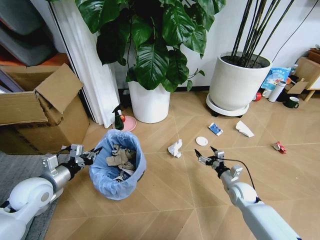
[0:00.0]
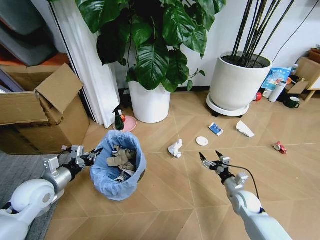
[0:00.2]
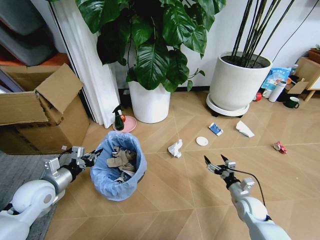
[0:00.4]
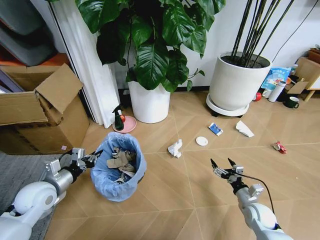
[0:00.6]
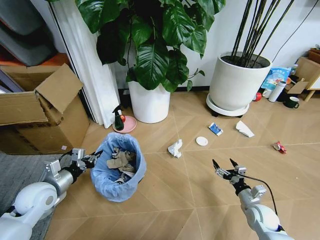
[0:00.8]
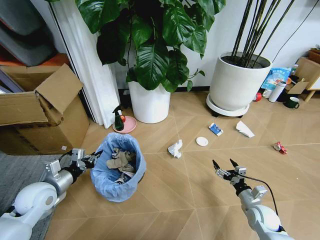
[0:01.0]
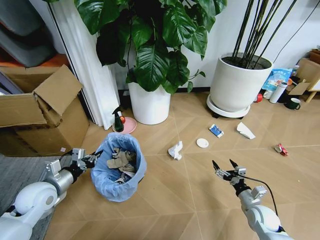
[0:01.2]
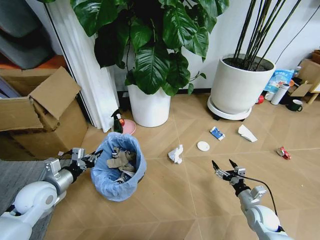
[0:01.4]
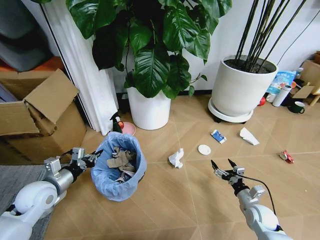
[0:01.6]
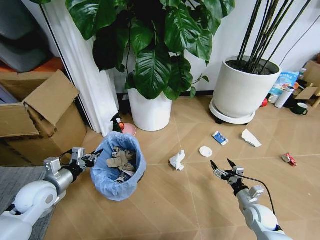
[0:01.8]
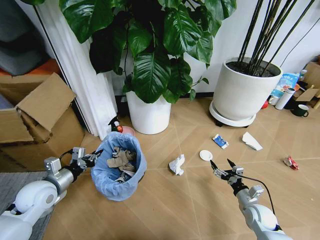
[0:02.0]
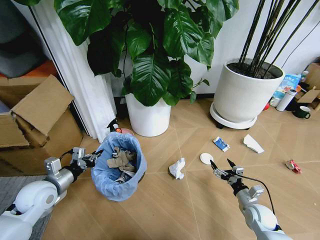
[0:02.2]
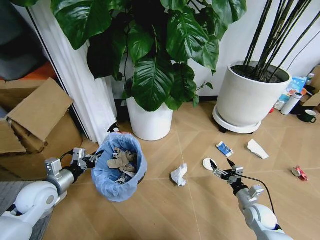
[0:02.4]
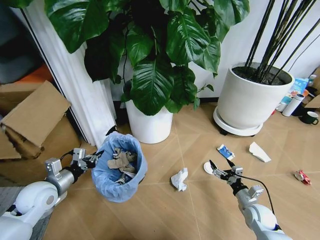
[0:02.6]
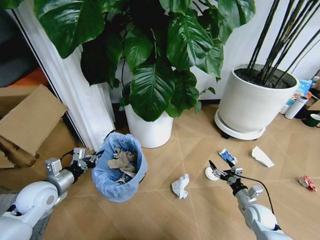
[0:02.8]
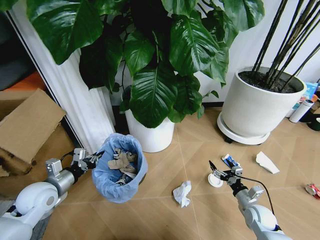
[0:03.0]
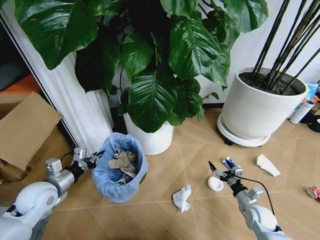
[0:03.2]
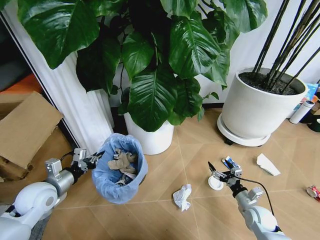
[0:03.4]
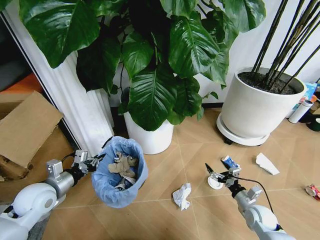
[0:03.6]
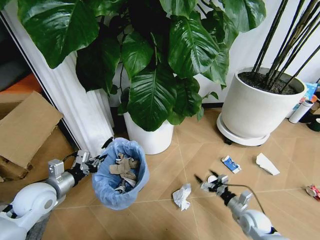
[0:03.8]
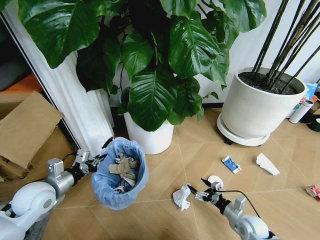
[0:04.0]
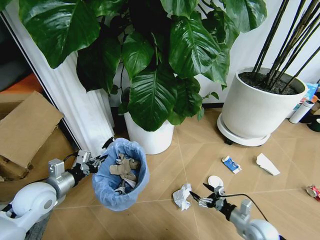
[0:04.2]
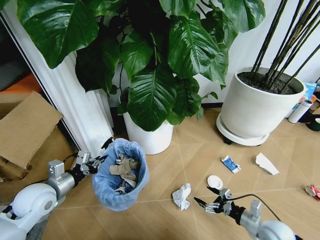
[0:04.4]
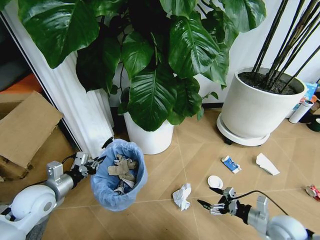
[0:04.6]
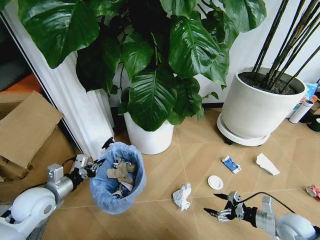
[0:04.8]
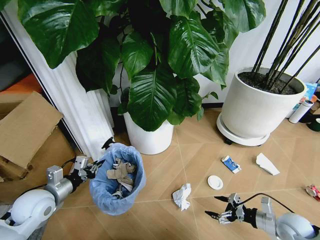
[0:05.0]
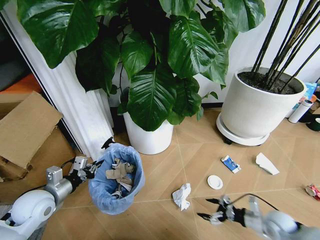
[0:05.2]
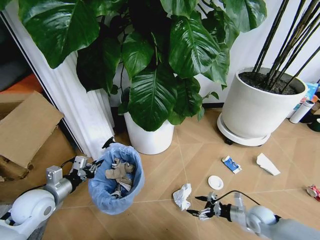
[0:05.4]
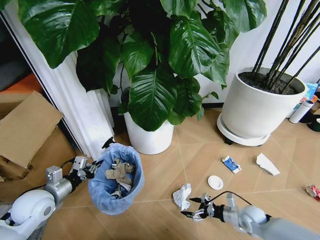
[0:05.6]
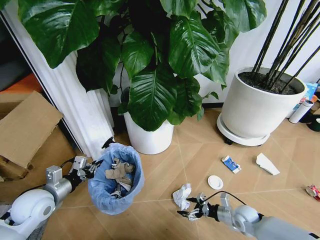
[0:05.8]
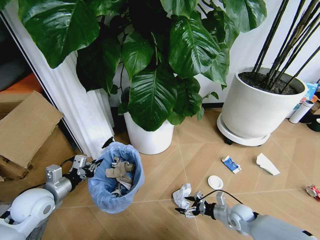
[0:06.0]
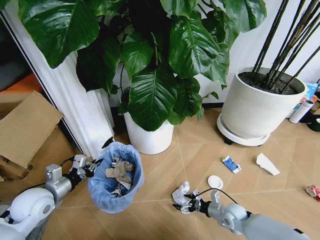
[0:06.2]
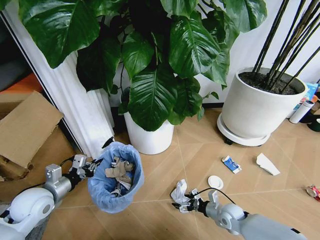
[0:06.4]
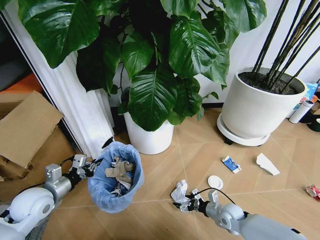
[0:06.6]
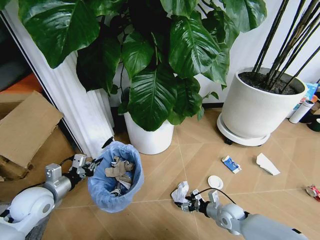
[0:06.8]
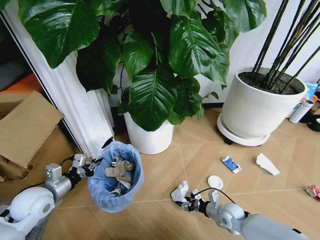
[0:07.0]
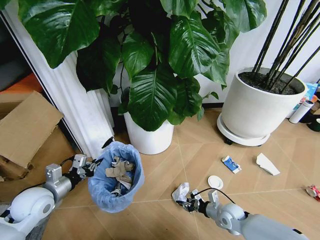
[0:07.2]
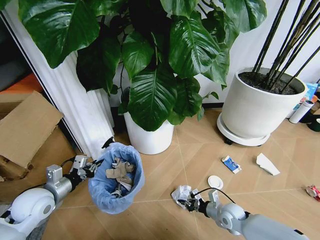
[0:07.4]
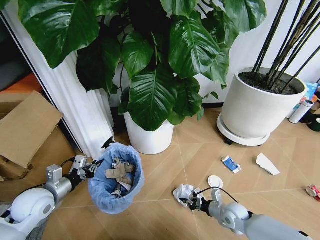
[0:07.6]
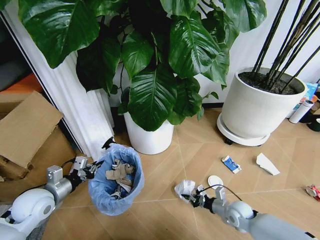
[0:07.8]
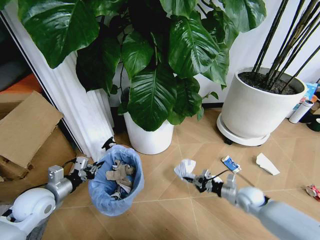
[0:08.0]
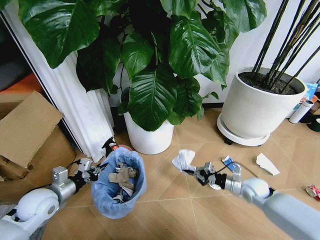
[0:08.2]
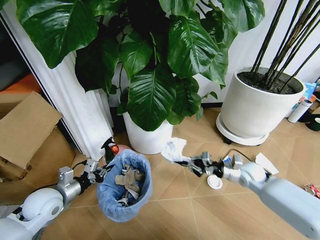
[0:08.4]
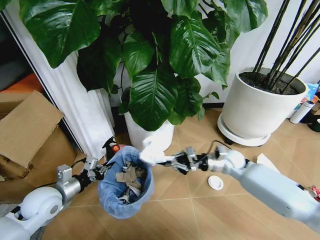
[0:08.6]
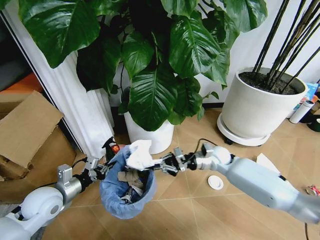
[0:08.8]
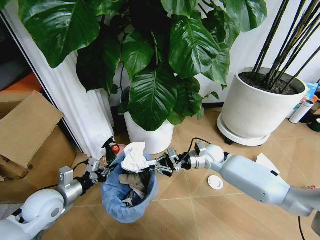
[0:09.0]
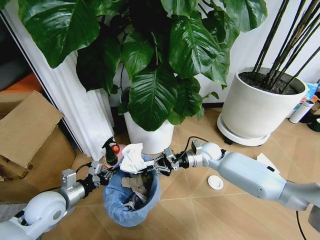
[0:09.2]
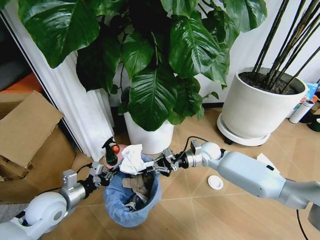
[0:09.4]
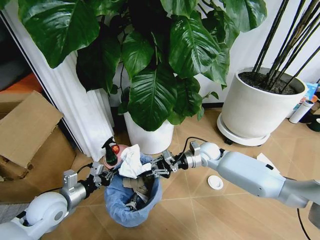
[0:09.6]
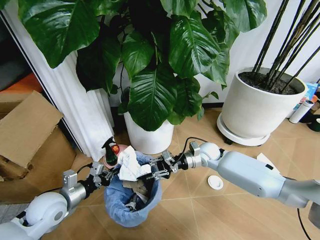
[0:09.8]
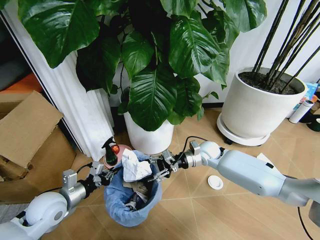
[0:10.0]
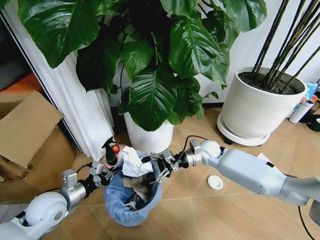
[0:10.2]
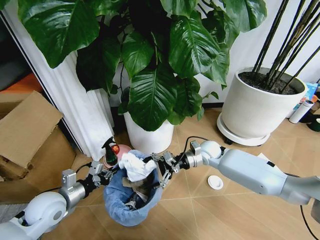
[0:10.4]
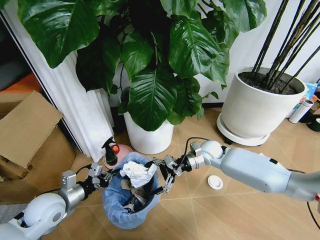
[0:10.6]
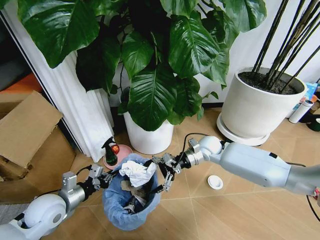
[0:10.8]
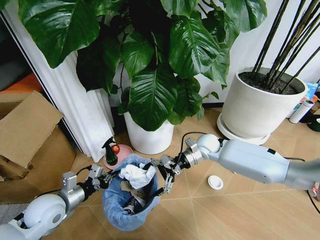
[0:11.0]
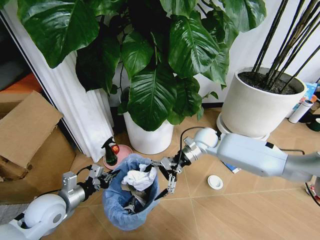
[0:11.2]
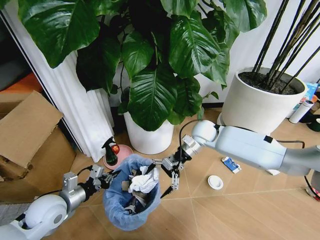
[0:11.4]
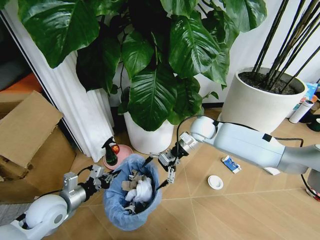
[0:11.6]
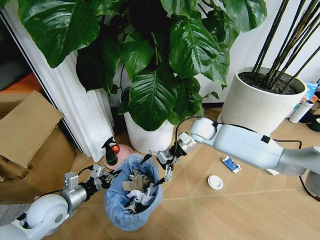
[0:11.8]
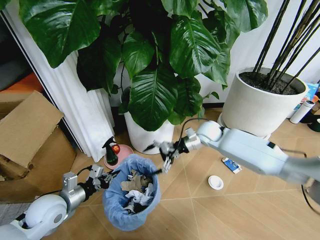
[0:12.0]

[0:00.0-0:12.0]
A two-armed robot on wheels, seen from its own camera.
Task of the whole recording: Pick up the trash bin and place the garbage on the floor into it.
0:00.0 to 0:01.6: The right gripper goes about 10 cm backward.
0:03.0 to 0:04.4: The right gripper travels backward by some 5 cm.
0:04.4 to 0:06.0: The right gripper goes approximately 10 cm forward and downward.
0:06.0 to 0:07.6: The right gripper closes up.
0:07.6 to 0:09.0: The right gripper heads forward, upward and to the left, covering about 25 cm.
0:09.0 to 0:10.4: The right gripper opens its fingers.
0:10.4 to 0:12.0: The right gripper is displaced upward by about 5 cm.

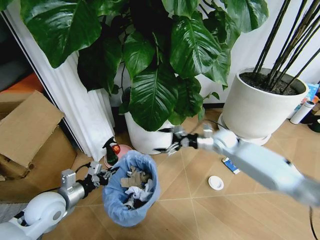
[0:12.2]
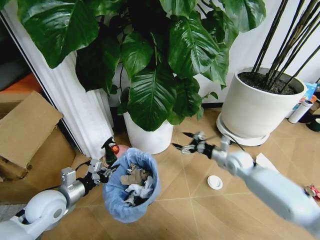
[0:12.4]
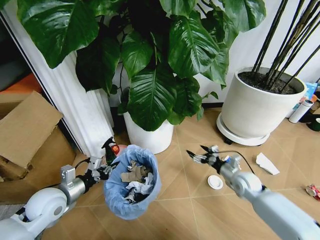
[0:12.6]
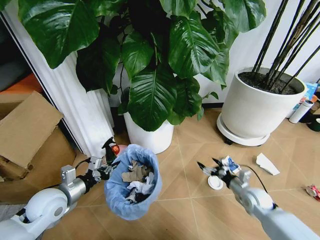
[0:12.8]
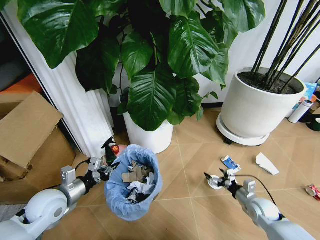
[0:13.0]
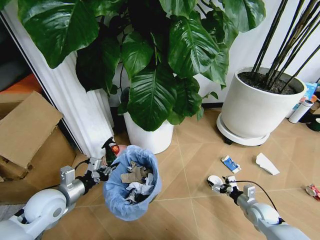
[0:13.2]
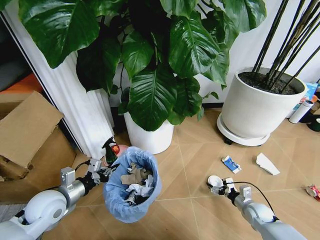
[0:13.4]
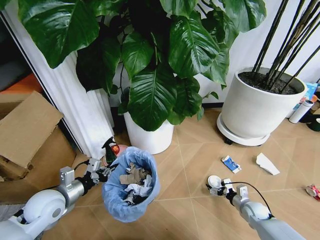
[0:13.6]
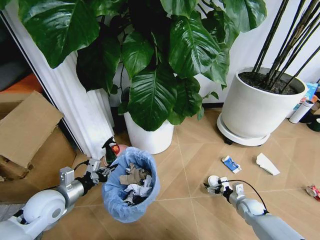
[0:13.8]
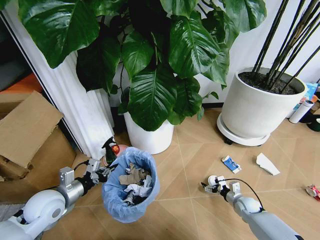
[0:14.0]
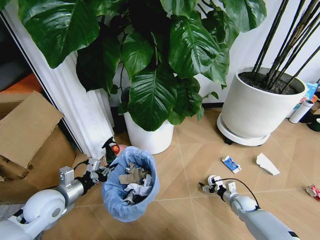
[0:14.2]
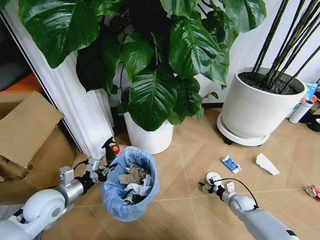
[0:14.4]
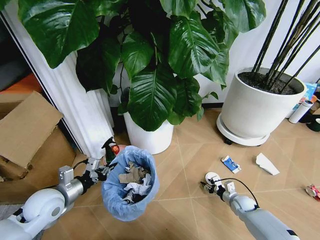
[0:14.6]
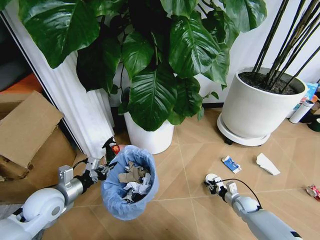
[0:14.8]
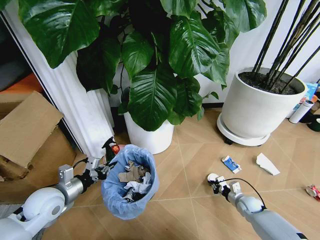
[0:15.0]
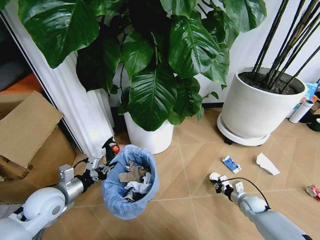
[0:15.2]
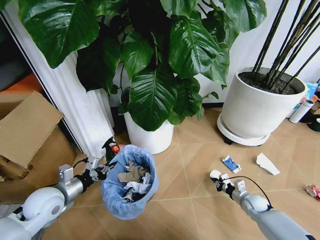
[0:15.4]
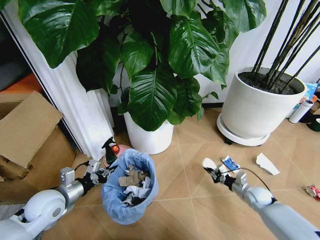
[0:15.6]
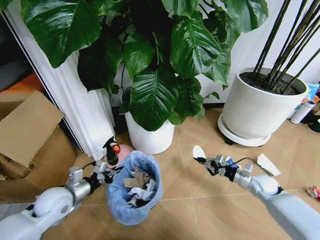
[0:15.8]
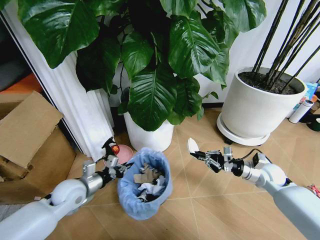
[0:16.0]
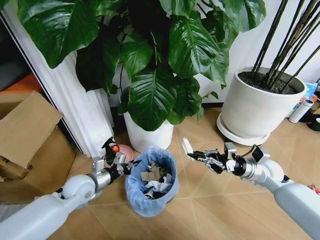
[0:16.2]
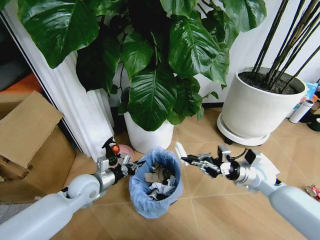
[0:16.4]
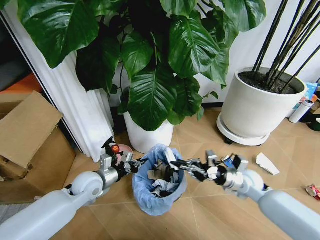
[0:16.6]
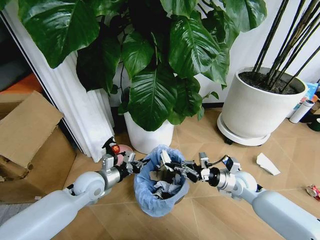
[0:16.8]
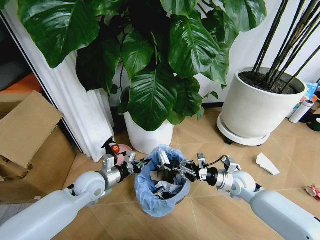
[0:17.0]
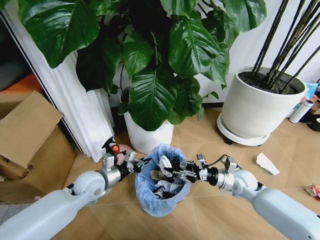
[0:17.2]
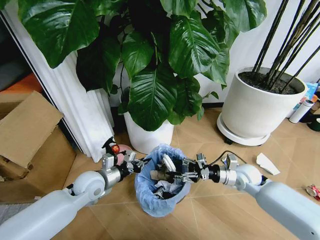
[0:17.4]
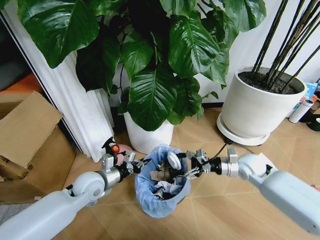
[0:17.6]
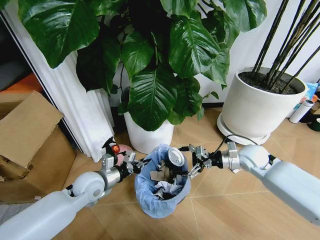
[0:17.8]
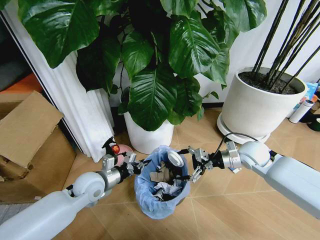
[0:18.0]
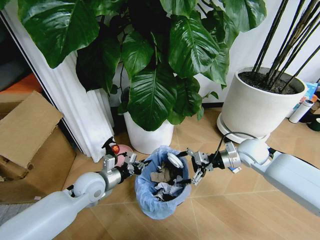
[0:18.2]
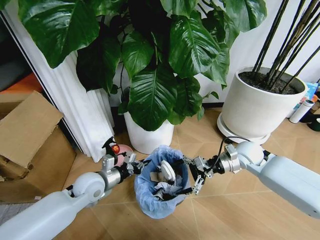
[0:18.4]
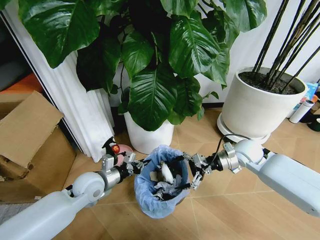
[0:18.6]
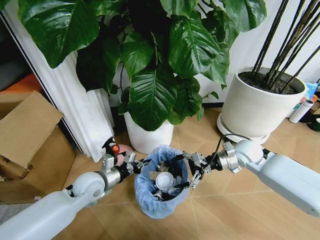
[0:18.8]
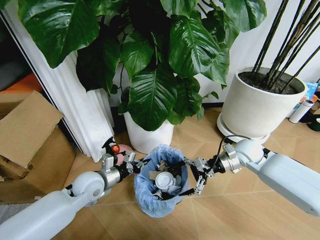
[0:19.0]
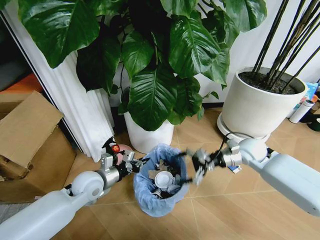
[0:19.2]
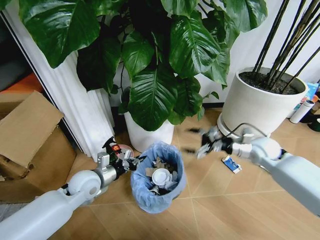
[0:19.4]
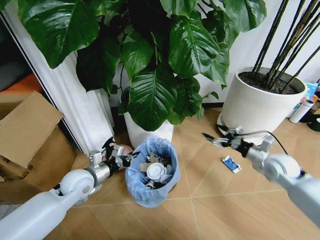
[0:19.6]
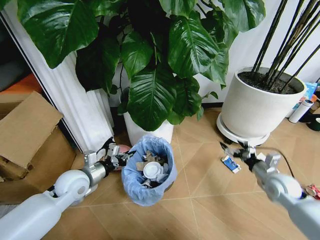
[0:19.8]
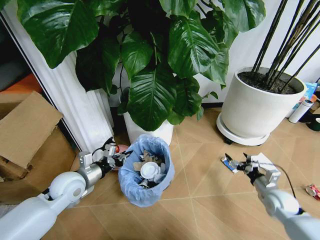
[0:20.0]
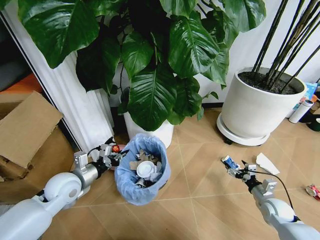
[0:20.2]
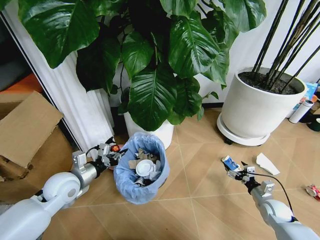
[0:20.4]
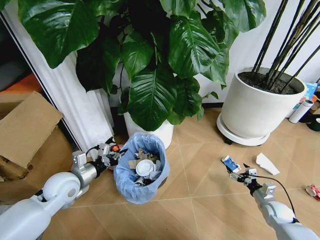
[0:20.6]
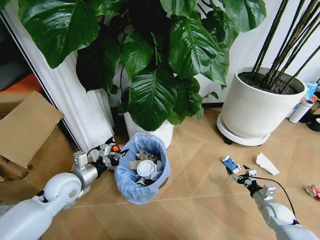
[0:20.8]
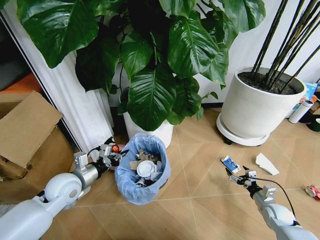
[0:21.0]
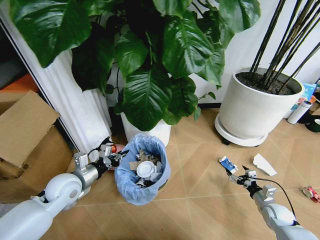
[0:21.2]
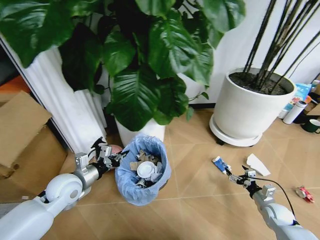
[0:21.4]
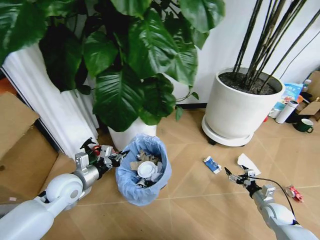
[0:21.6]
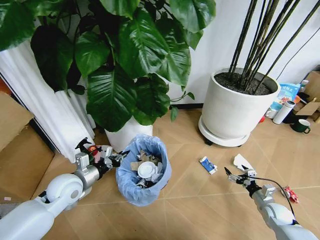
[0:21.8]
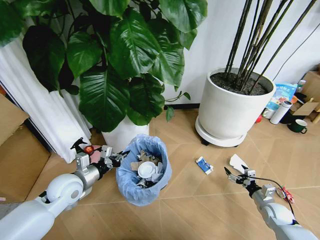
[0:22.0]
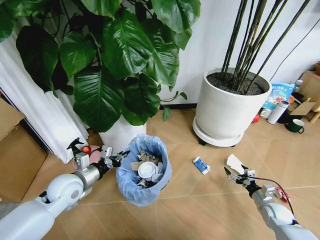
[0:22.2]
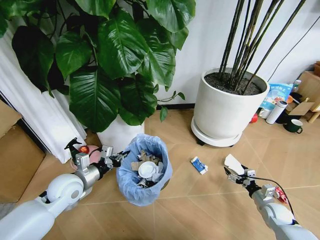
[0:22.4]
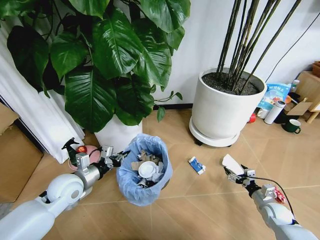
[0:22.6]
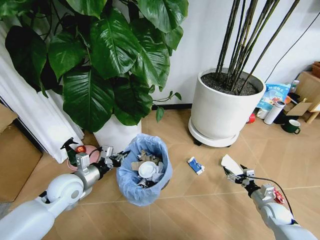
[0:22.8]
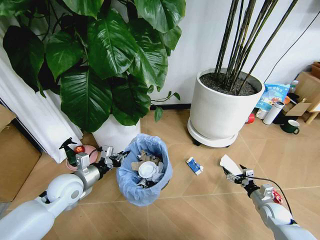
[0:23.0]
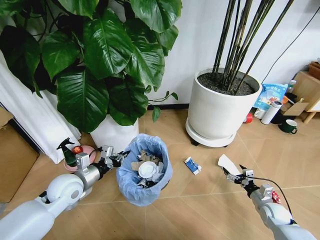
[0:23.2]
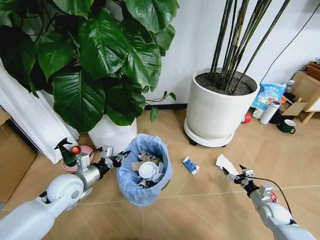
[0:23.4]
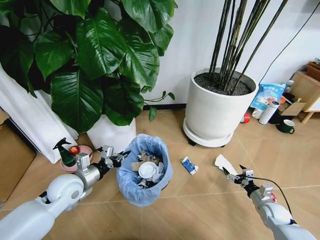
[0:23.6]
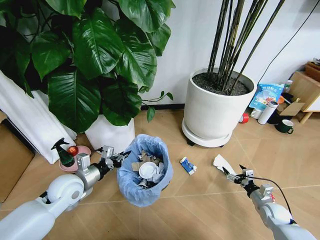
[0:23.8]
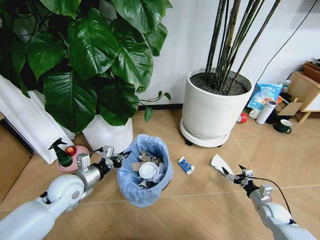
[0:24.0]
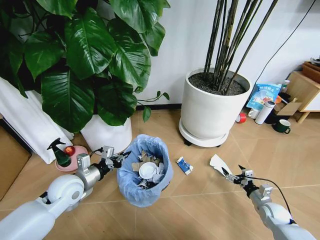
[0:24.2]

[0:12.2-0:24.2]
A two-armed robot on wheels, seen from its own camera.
Task of the whole recording: Pick up the trash bin and place the garbage on the floor into it.
0:12.2 to 0:13.8: The right gripper travels downward, backward and to the right by approximately 35 cm.
0:13.8 to 0:15.2: The right gripper closes its fingers.
0:15.2 to 0:16.6: The right gripper goes some 20 cm upward and to the left, while the left gripper goes approximately 10 cm to the right and forward.
0:16.6 to 0:18.2: The right gripper travels upward and forward by some 10 cm, and opens.
0:18.2 to 0:19.8: The left gripper changes place by some 5 cm; the right gripper heads to the right, backward and downward, covering roughly 15 cm.
0:19.8 to 0:21.2: The right gripper moves downward, approximately 15 cm.
